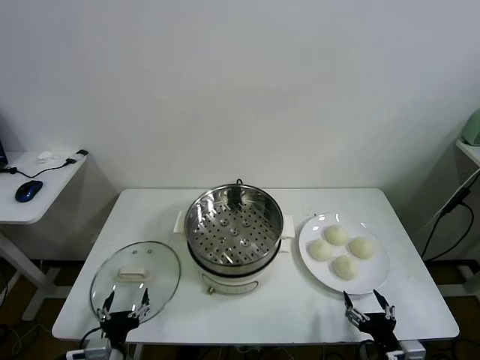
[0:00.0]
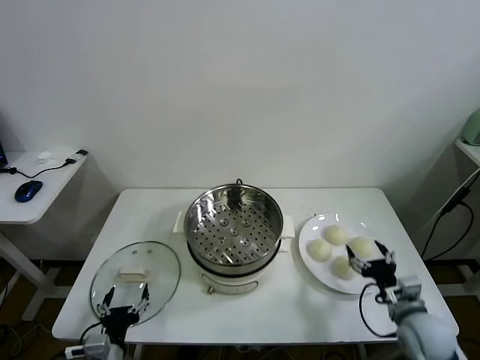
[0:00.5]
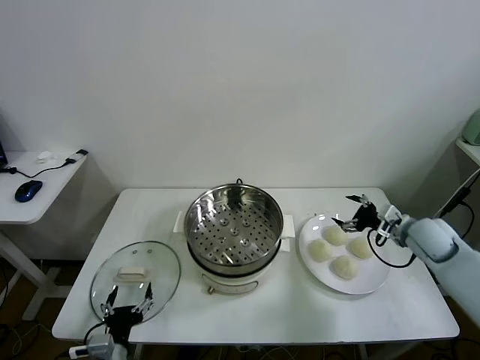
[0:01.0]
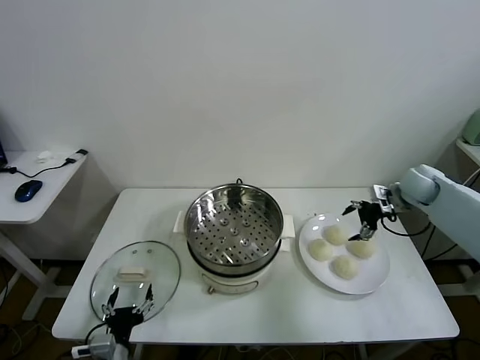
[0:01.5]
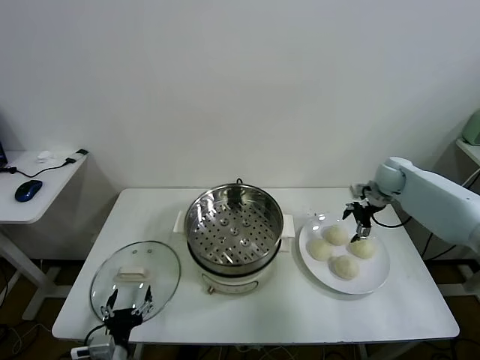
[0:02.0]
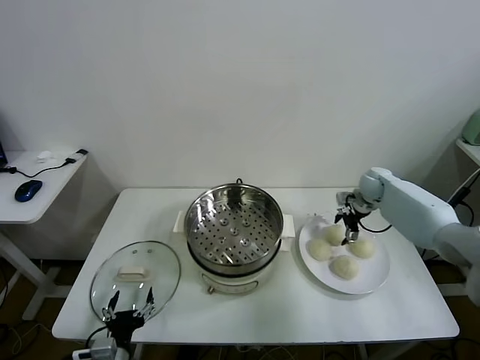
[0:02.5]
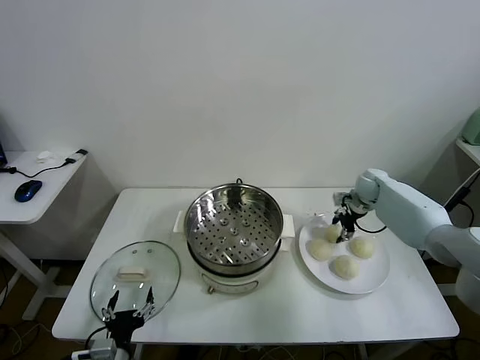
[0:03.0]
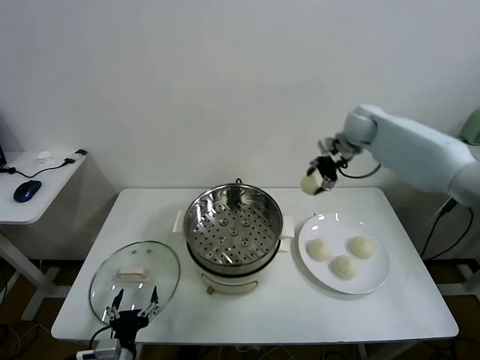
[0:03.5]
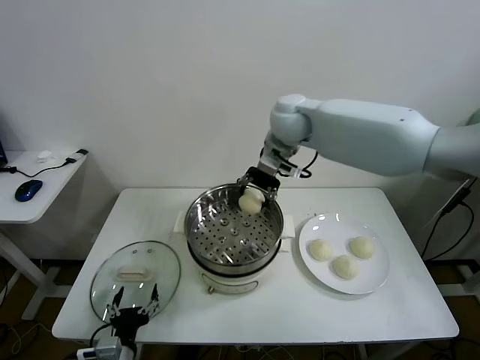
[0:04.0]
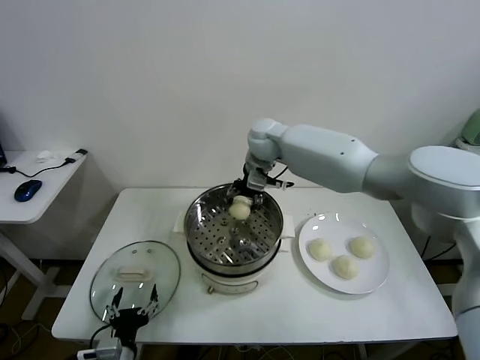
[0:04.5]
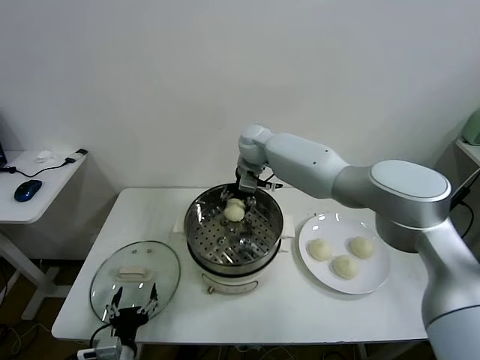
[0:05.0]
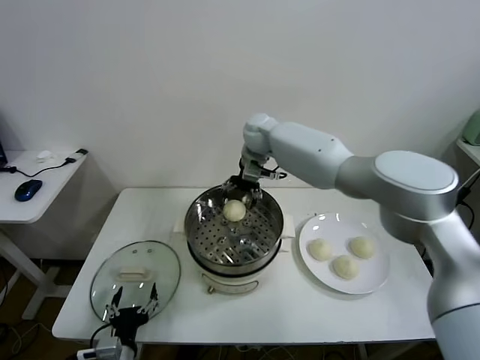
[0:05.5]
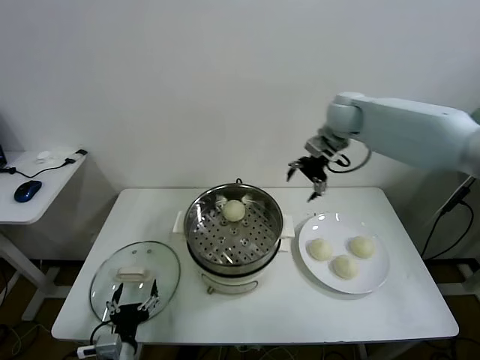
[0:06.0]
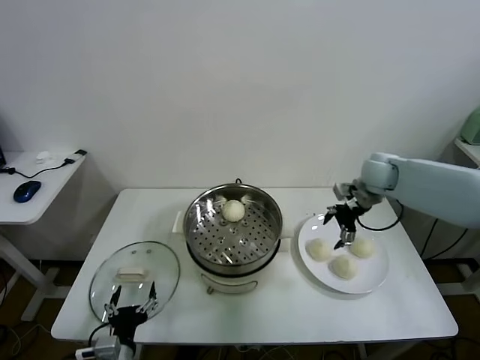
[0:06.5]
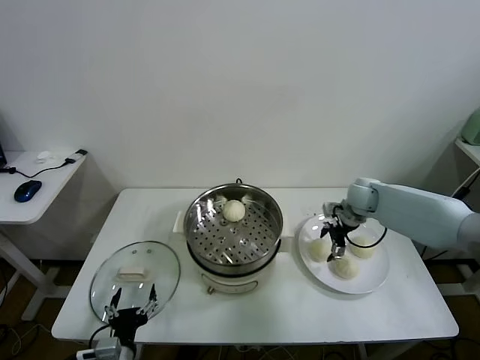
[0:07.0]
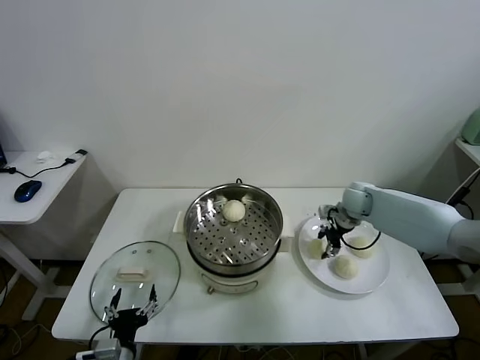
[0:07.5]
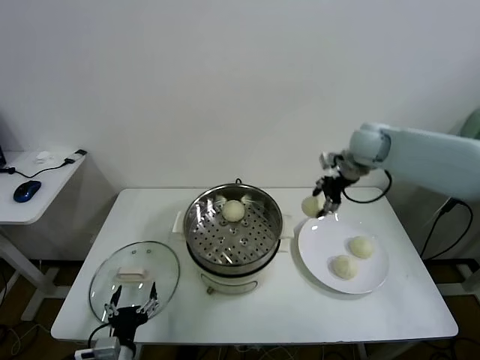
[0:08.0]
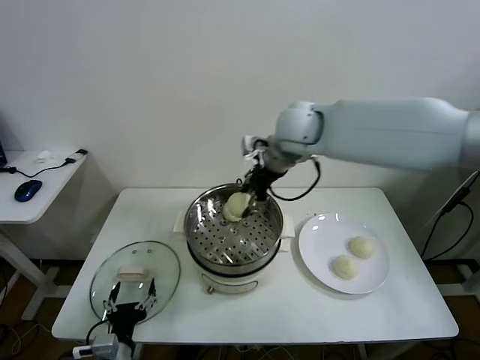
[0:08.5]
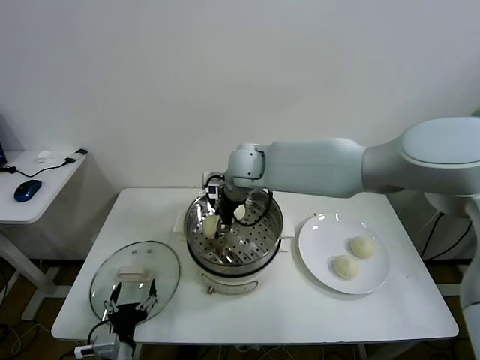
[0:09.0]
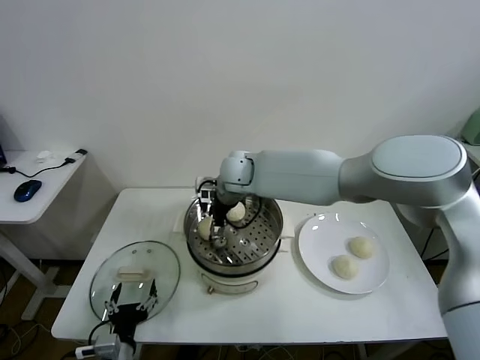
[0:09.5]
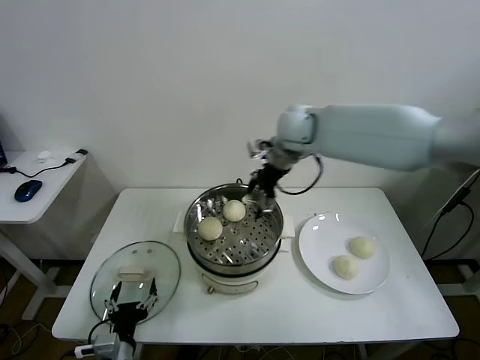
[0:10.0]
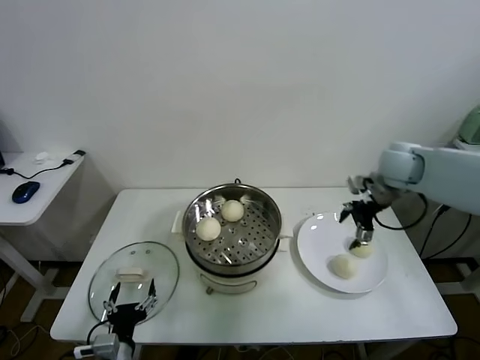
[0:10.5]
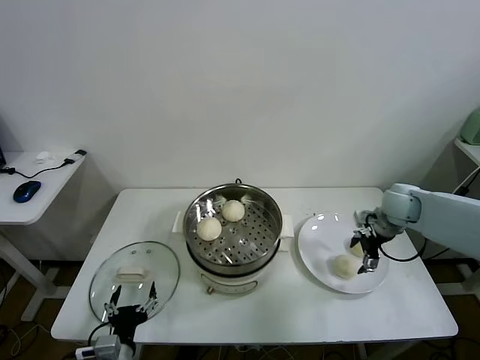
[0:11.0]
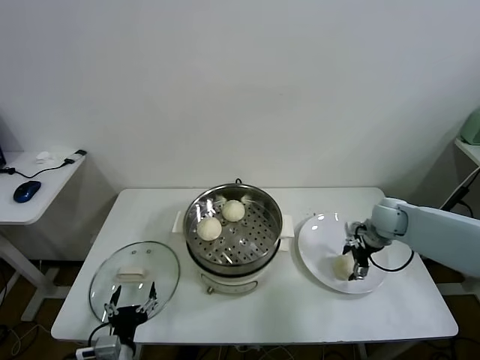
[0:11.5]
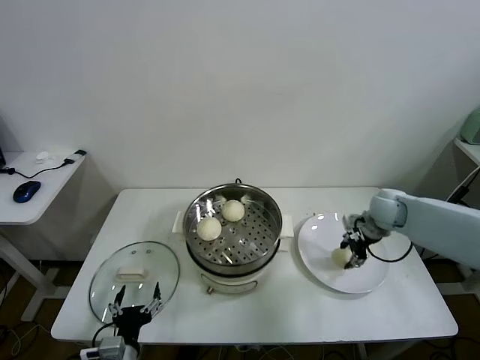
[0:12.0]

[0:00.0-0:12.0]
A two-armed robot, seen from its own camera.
Task of the whole recording: take steamed baozi put them in steamer.
Step, 0:00.0 to 0:03.0: Grasp the baozi in the plate with right gripper.
Step, 0:03.5 to 0:05.0: Place the baozi on the steamer with right gripper.
Step, 0:05.5 to 0:07.0: Grasp the baozi in the plate with right gripper.
Step, 0:07.5 to 0:09.5: Place the baozi on the steamer with right gripper.
Step, 0:10.0 to 0:11.5: Grasp the baozi in the plate with right gripper.
0:02.0 to 0:04.0: The right gripper travels to the left and upward by some 35 cm, and closes up.
0:04.0 to 0:06.0: The right gripper shifts roughly 20 cm to the right, and opens up.
0:06.0 to 0:08.0: The right gripper travels downward and back again, approximately 20 cm each way, and closes its fingers.
0:08.0 to 0:10.0: The right gripper goes approximately 10 cm to the left, and opens its fingers.
0:10.0 to 0:12.0: The right gripper travels to the right and downward by roughly 30 cm, and closes.

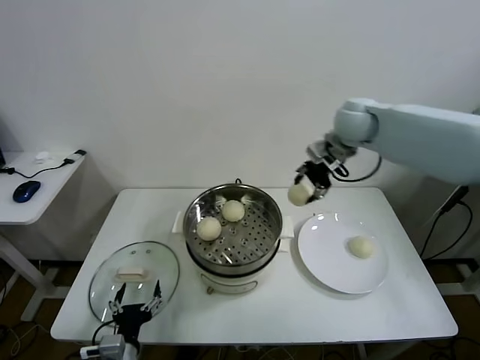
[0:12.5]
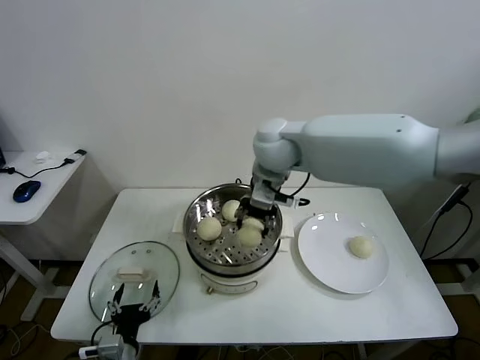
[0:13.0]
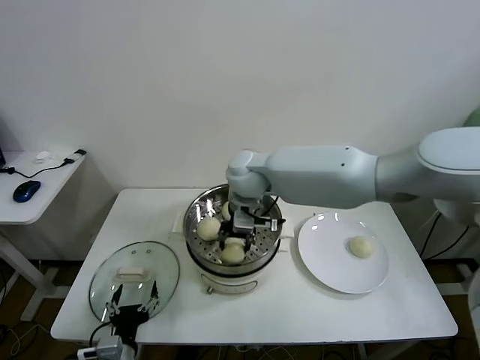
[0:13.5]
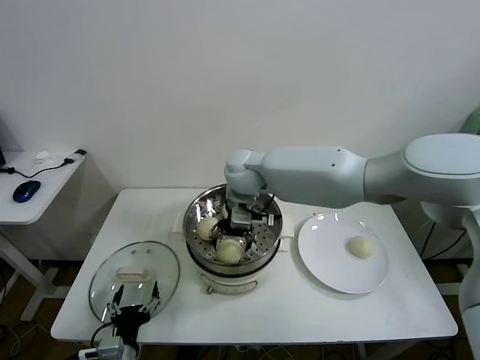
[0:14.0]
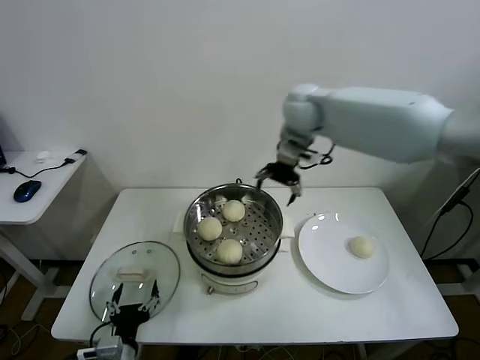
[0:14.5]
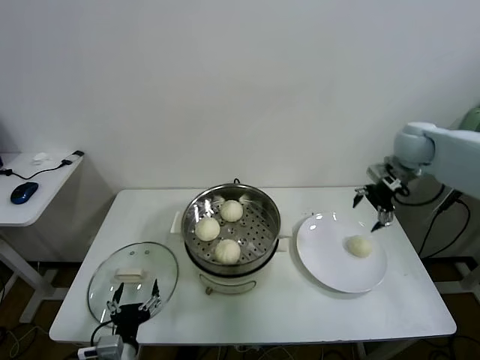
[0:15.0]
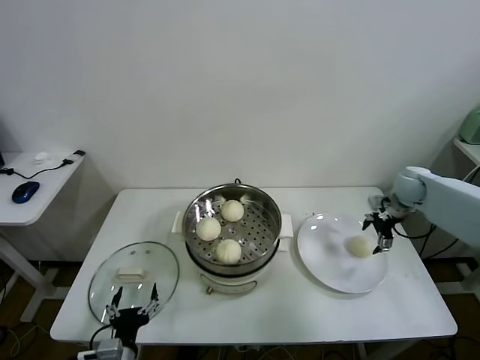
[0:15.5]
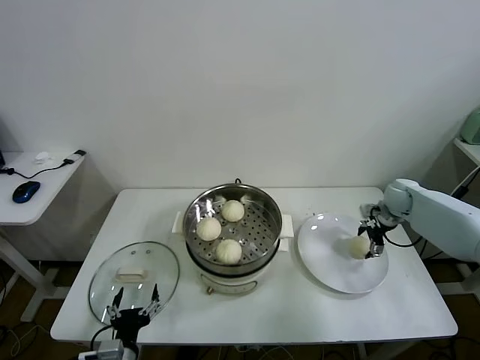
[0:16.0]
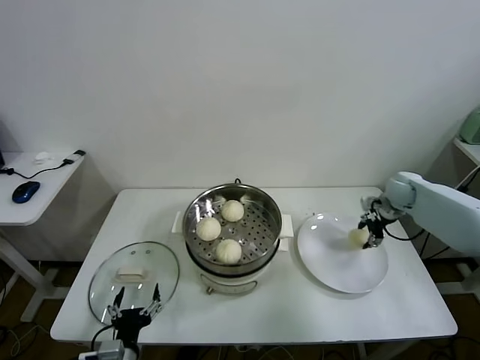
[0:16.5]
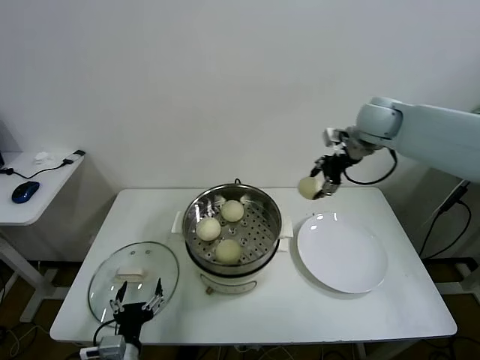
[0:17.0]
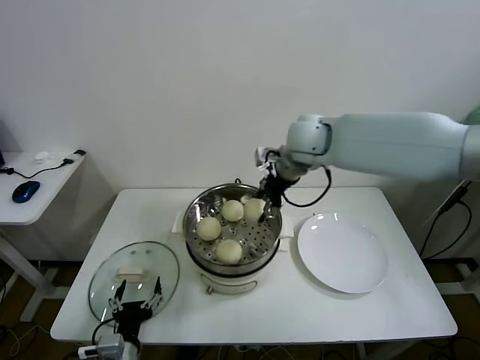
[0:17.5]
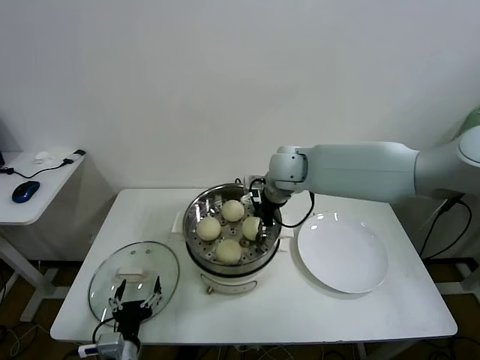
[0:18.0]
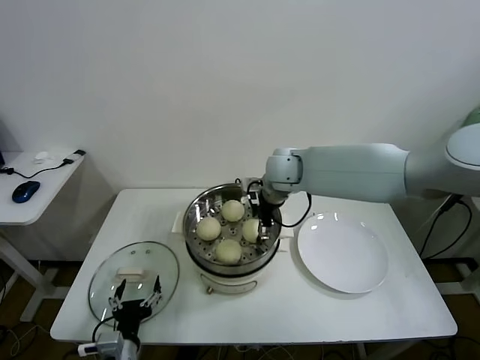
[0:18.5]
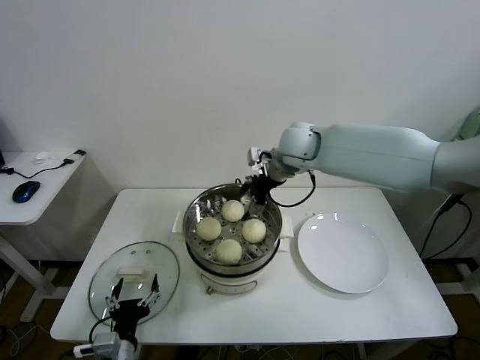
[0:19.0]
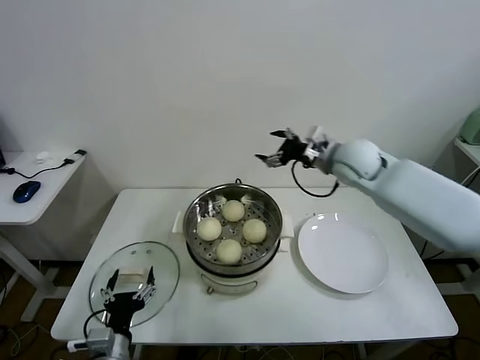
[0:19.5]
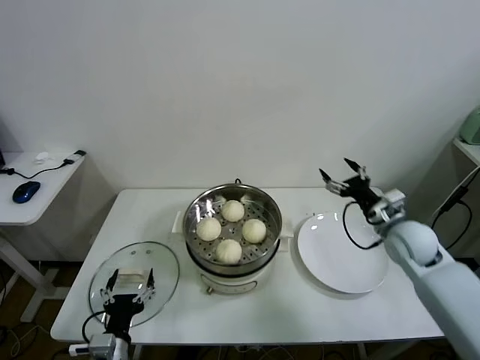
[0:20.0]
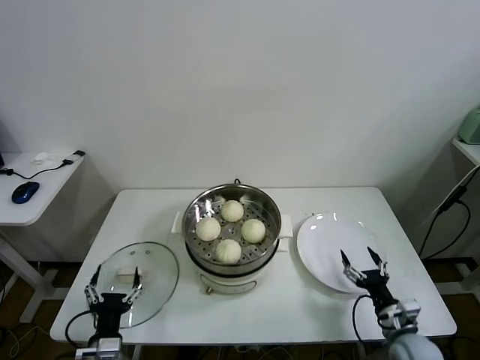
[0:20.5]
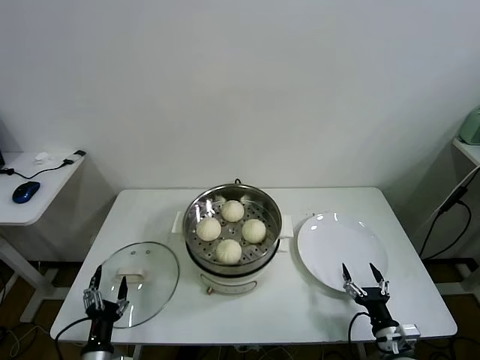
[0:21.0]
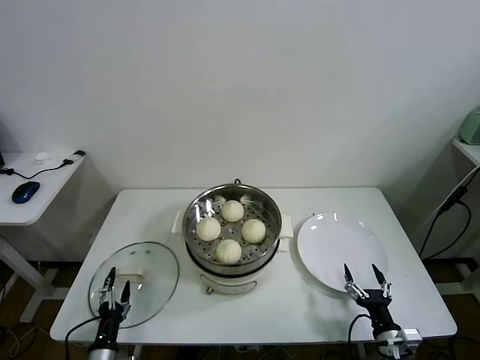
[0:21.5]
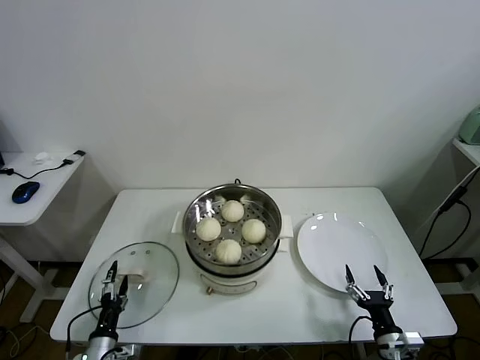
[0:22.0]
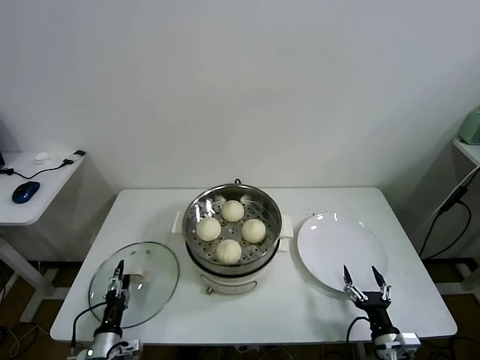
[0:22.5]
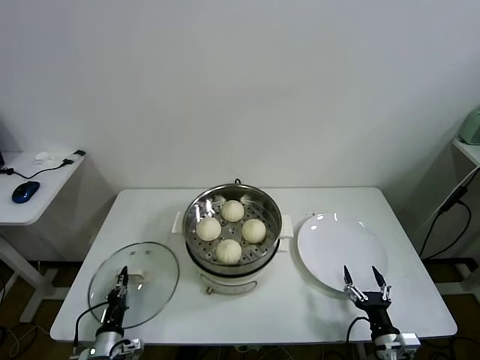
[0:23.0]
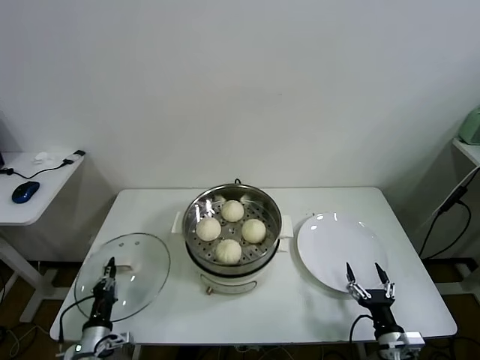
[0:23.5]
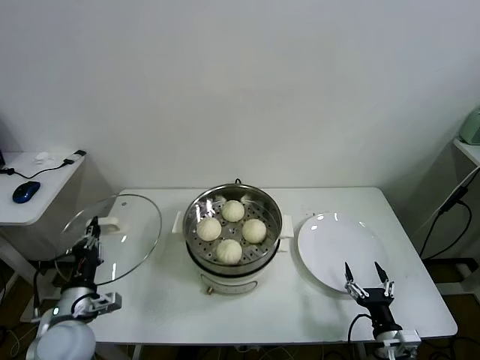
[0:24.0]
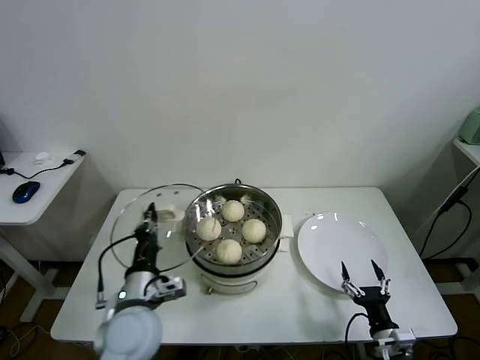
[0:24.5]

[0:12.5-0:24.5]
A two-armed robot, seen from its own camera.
Task of the whole recording: take steamed baozi put them in steamer.
Step, 0:12.5 to 0:14.0: Place the baozi on the steamer with right gripper.
Step, 0:14.5 to 0:16.0: Grasp the baozi in the plate with right gripper.
Step, 0:16.5 to 0:18.5: Place the baozi on the steamer with right gripper.
Step, 0:19.0 to 0:23.0: Grasp the pot lid with left gripper.
0:12.5 to 0:14.5: The right gripper moves some 20 cm to the left and comes back, and opens.
0:14.5 to 0:16.5: The right gripper goes approximately 35 cm to the right and downward, and closes its fingers.
0:16.5 to 0:18.5: The right gripper is displaced to the left by roughly 35 cm, and opens up.
0:18.5 to 0:20.5: The right gripper moves backward, downward and to the right, about 50 cm.
0:20.5 to 0:22.5: The right gripper travels backward by some 5 cm; the left gripper travels downward and to the left by roughly 10 cm.
0:22.5 to 0:24.5: The left gripper travels upward and to the right by approximately 25 cm, and closes.

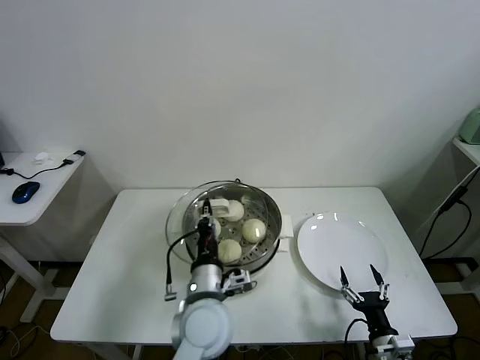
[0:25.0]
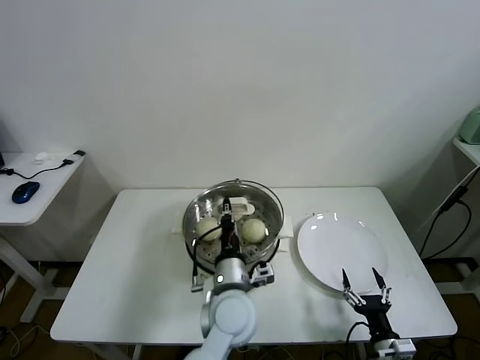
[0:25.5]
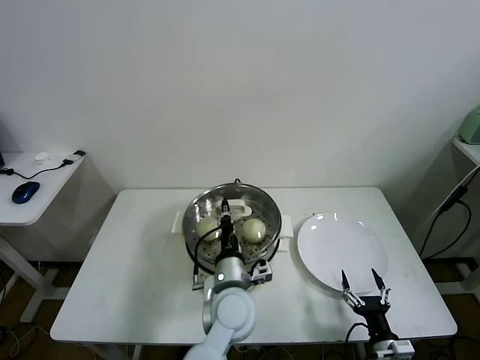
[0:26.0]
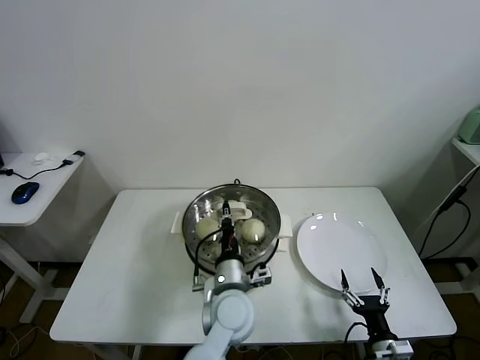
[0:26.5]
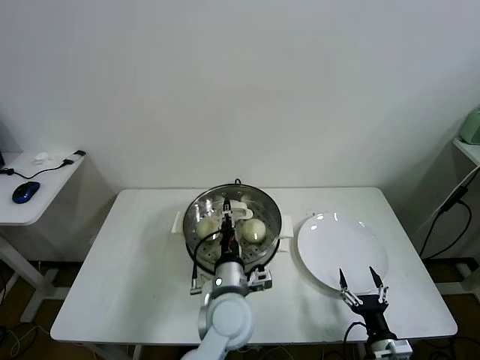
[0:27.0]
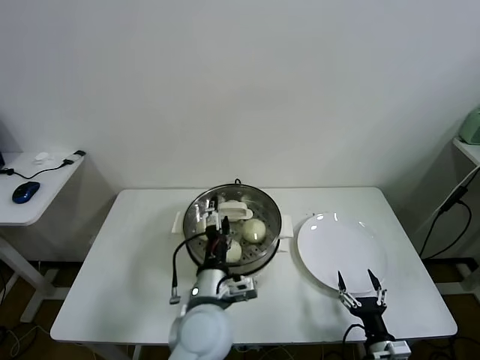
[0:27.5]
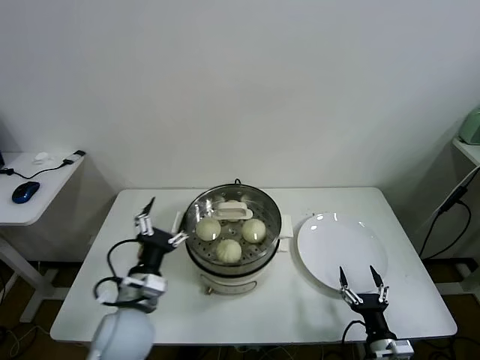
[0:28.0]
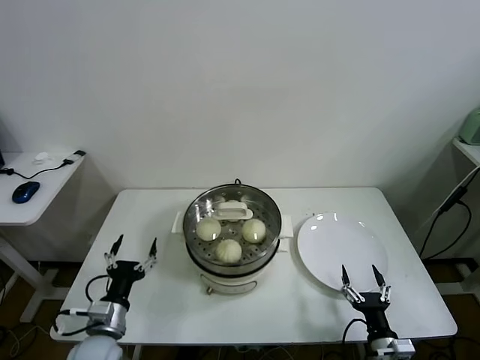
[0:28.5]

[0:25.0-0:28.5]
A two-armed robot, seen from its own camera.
Task of the whole recording: take steamed baozi put them in steamer.
Step, 0:25.0 to 0:27.0: Place the pot lid on the steamer with left gripper.
0:25.0 to 0:27.0: The left gripper travels to the right by approximately 5 cm, and opens.
0:27.0 to 0:28.5: The left gripper goes some 25 cm to the left, and opens.
